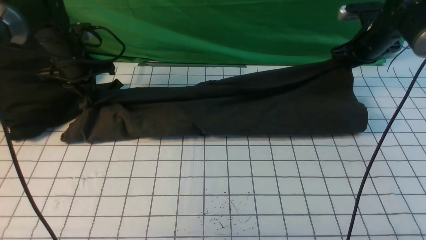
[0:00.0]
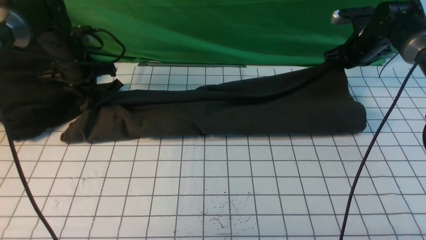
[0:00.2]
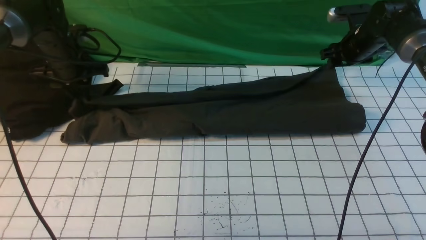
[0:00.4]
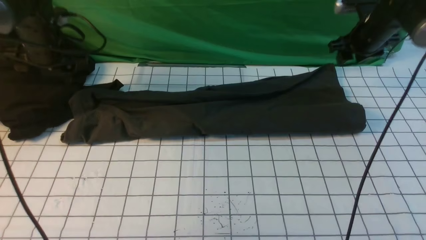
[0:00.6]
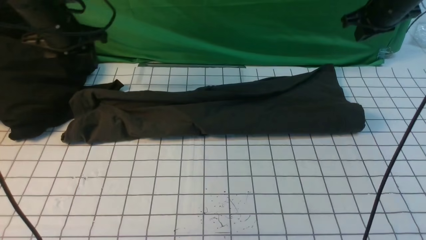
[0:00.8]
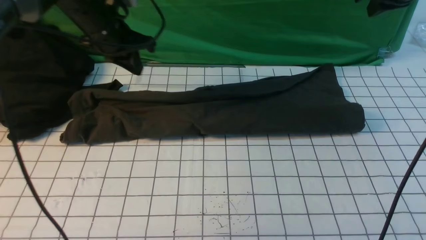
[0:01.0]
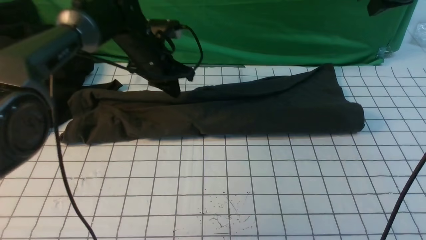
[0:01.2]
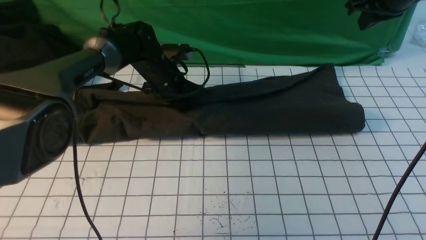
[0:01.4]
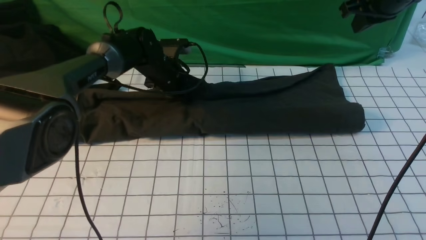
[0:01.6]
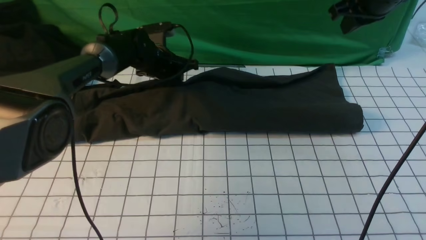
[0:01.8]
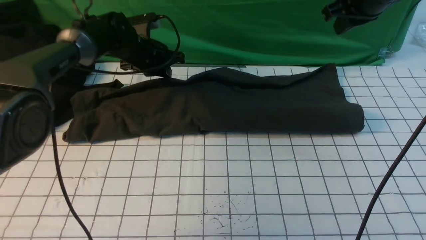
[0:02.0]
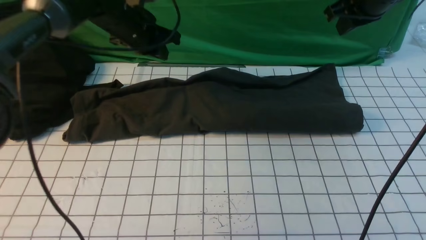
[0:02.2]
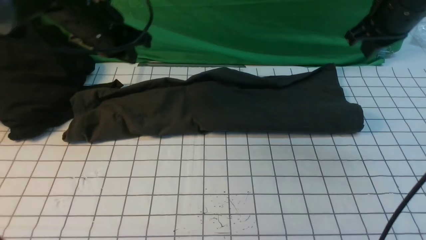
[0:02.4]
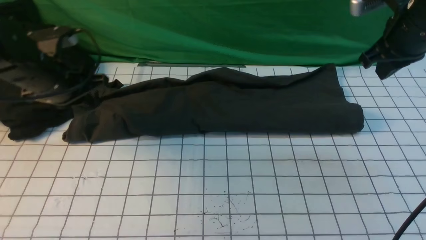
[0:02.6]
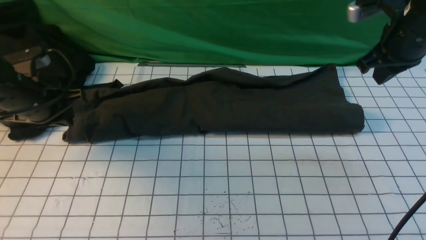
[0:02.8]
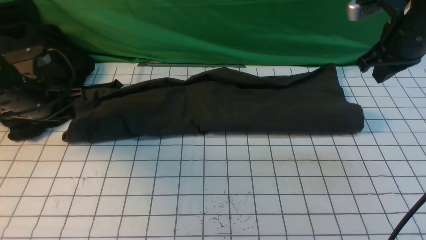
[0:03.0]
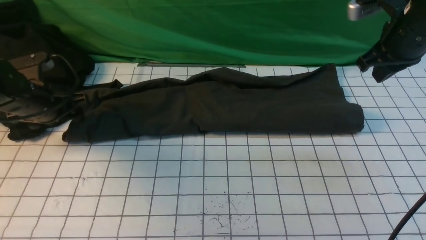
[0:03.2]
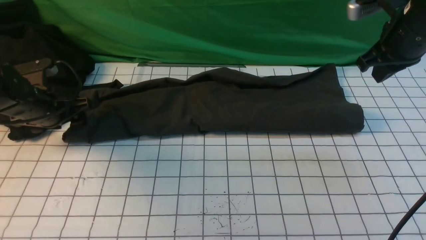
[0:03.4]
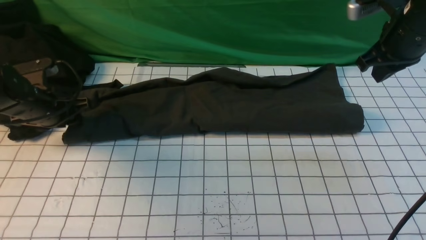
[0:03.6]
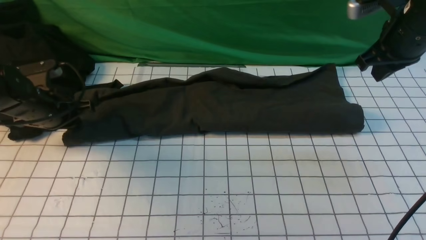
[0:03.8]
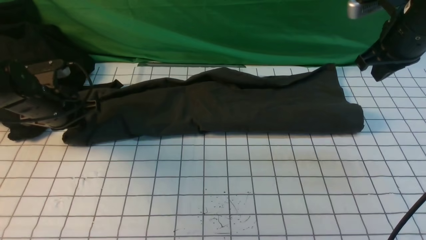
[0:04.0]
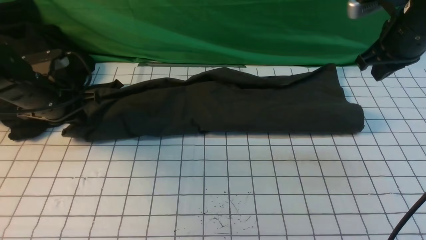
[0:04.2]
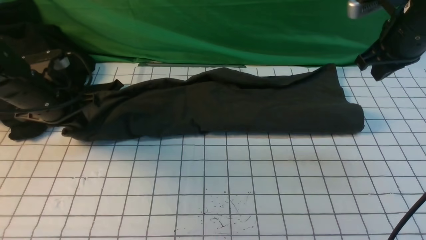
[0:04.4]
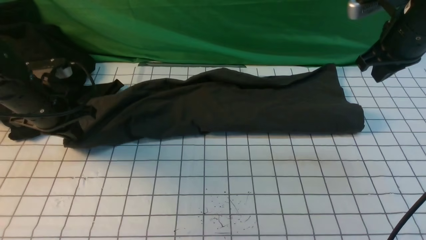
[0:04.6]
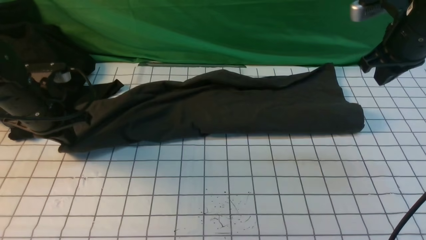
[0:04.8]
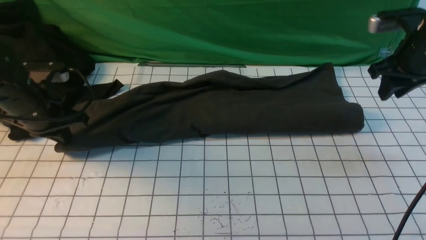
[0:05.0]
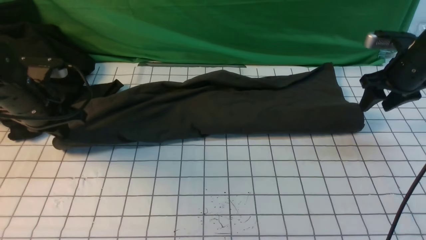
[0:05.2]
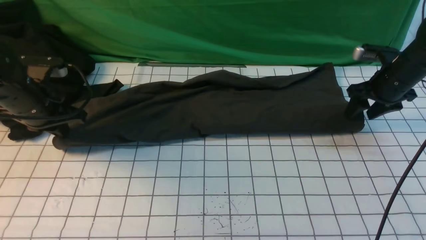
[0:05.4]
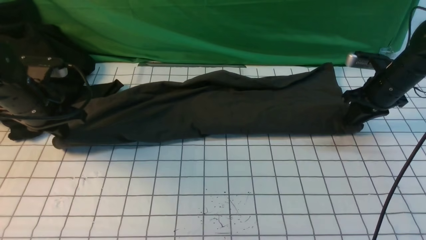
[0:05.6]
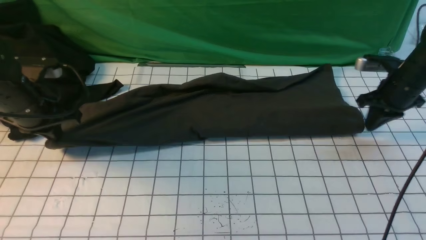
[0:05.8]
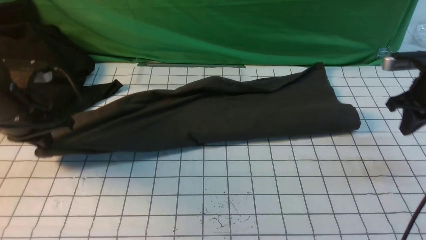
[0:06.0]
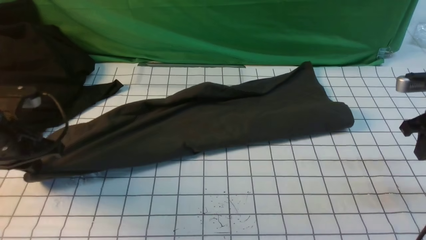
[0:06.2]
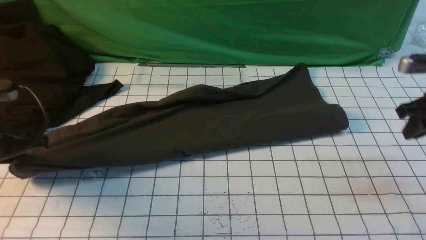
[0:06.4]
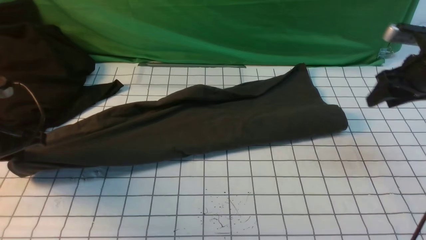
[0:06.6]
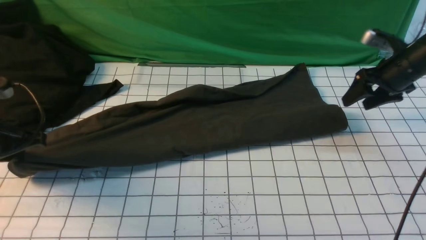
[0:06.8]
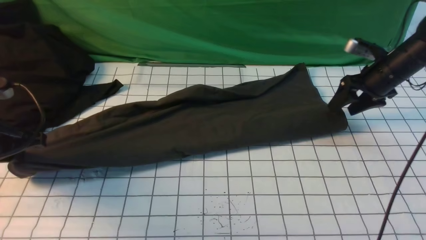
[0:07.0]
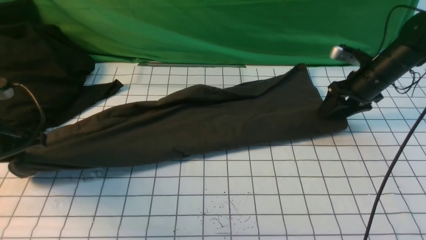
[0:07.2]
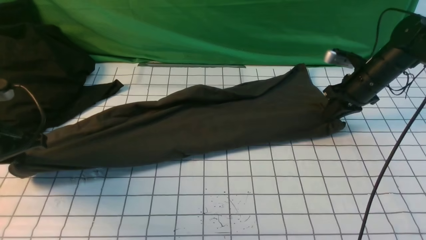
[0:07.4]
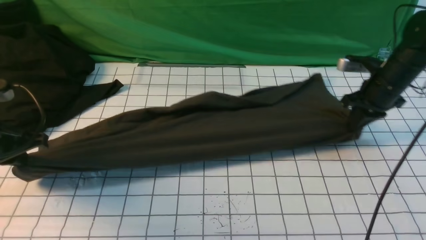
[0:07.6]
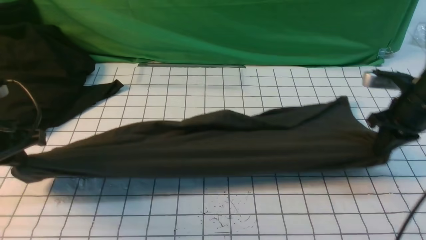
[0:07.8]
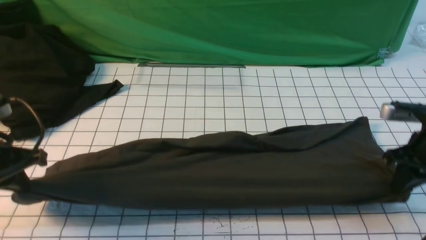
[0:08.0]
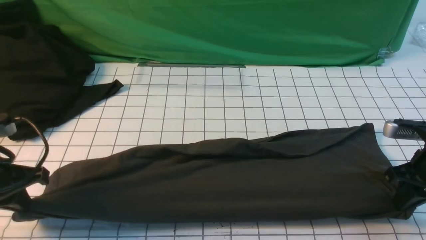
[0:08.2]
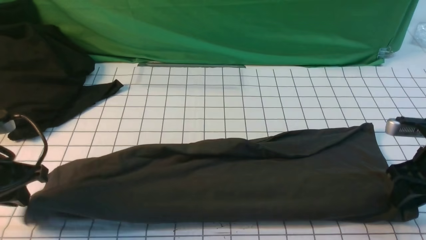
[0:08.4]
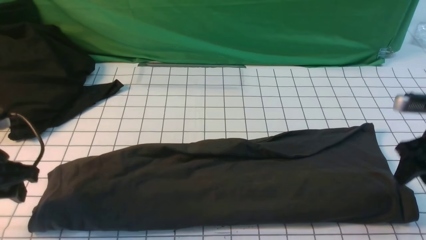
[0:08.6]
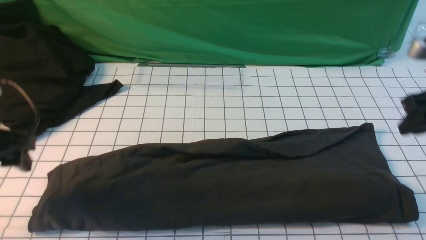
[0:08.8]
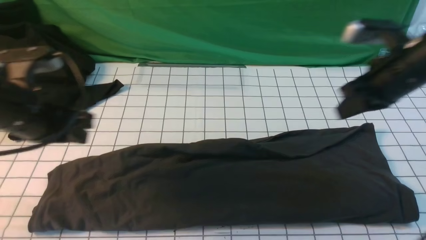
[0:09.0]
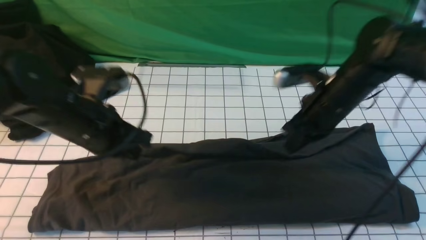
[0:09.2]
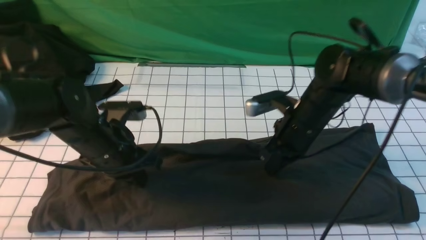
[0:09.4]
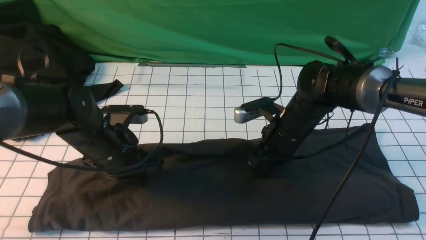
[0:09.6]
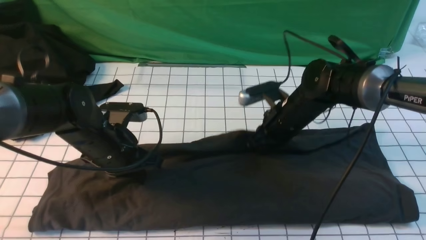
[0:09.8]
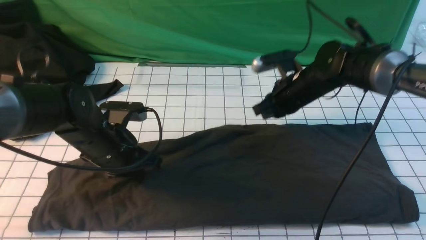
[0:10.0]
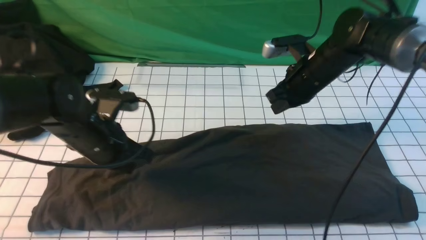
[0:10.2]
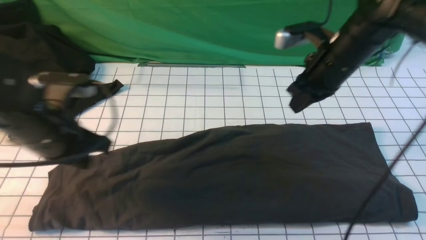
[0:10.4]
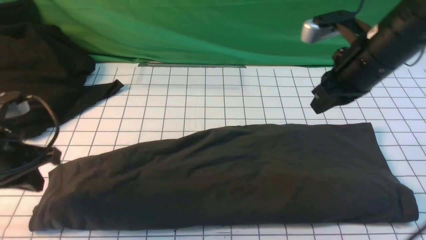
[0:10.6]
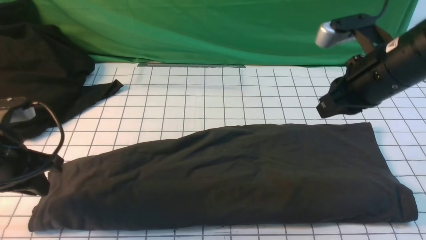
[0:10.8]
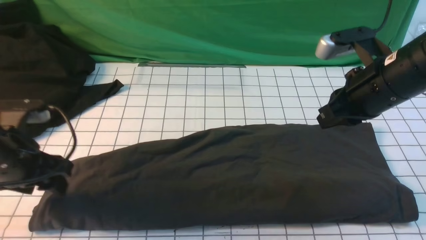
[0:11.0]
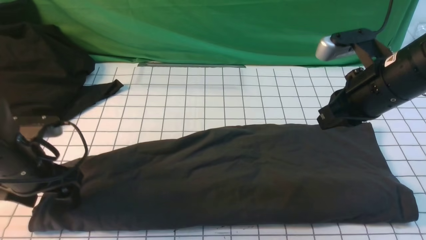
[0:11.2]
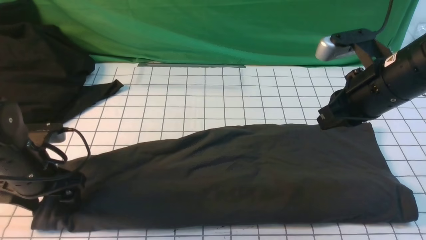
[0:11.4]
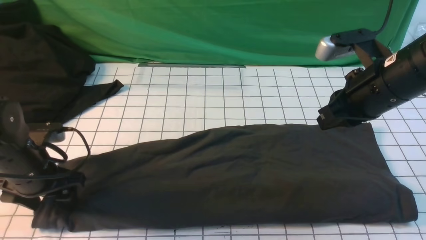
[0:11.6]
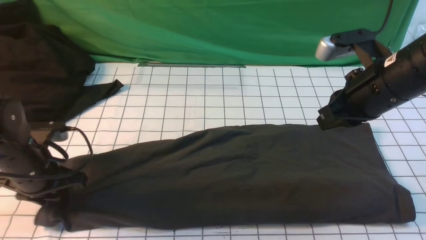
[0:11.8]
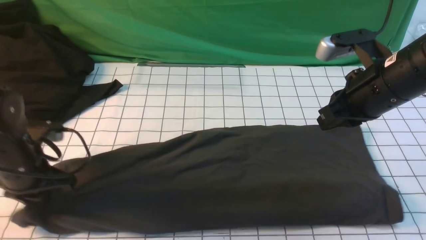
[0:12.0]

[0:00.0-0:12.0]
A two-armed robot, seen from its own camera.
0:00.0 to 0:01.6: The left gripper goes some 15 cm to the right, and opens and closes again; the right gripper travels upward and backward by about 15 cm, and opens, then closes once more.
0:01.6 to 0:03.0: The left gripper shifts about 25 cm to the left and backward, and opens its fingers; the right gripper goes approximately 5 cm backward.
0:03.0 to 0:04.4: The left gripper closes up.
0:04.4 to 0:06.0: The left gripper shifts by about 5 cm, while the right gripper moves downward and to the right, roughly 15 cm, and opens and closes again.
0:06.0 to 0:07.6: The left gripper shifts by some 5 cm; the right gripper moves roughly 10 cm forward and comes back, and opens, then closes again.
0:07.6 to 0:09.0: The left gripper goes some 10 cm to the right. The right gripper moves backward, upward and to the left, approximately 15 cm, and opens, then closes once more.
0:09.0 to 0:10.4: The left gripper reaches some 10 cm downward, then returns. Meanwhile the right gripper goes some 5 cm to the left, and travels downward and back again, roughly 10 cm each way.
0:10.4 to 0:12.0: The left gripper moves some 5 cm, and opens, then closes again; the right gripper is displaced backward by roughly 10 cm.

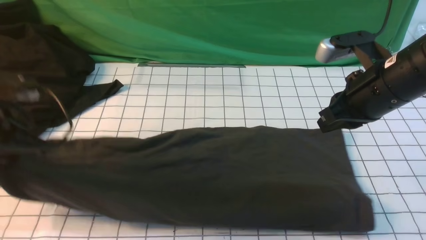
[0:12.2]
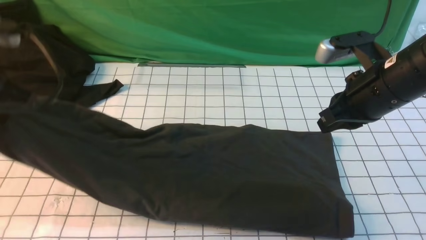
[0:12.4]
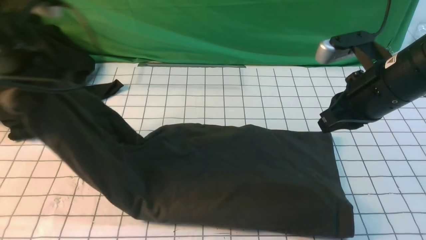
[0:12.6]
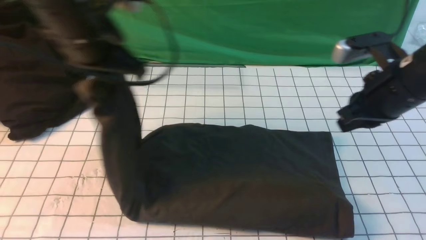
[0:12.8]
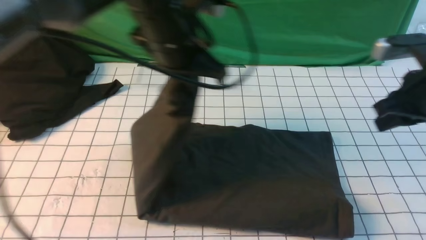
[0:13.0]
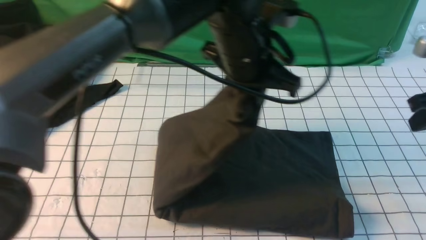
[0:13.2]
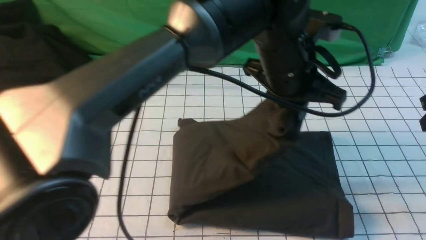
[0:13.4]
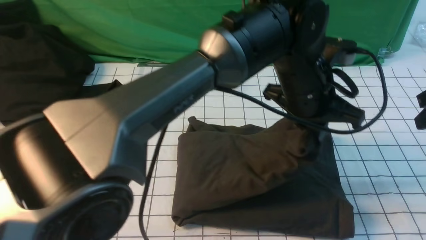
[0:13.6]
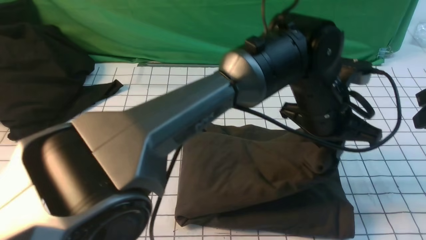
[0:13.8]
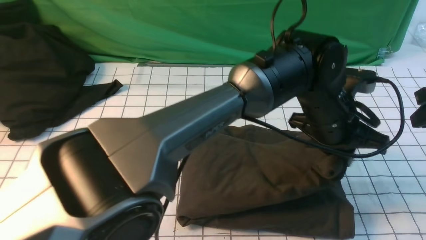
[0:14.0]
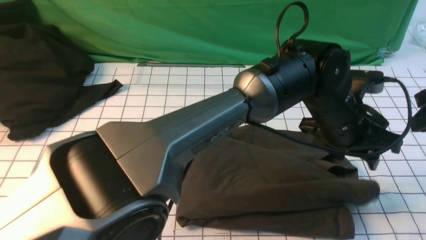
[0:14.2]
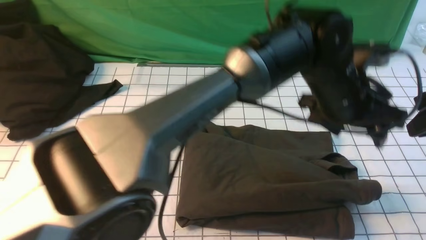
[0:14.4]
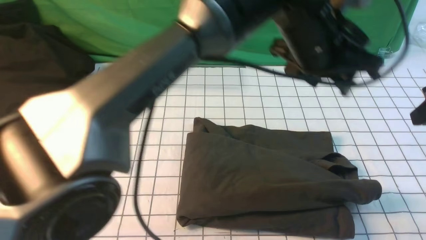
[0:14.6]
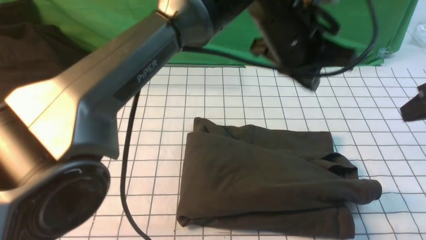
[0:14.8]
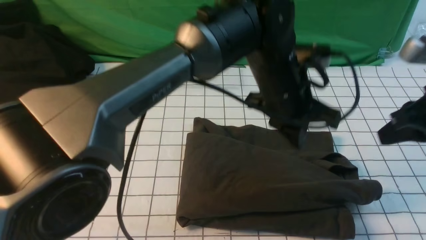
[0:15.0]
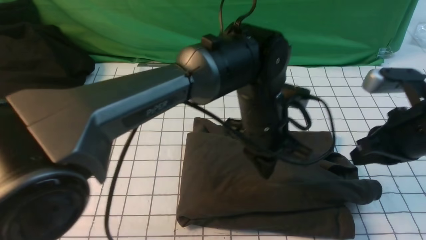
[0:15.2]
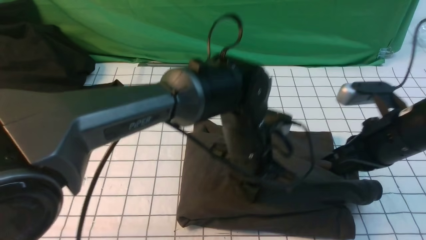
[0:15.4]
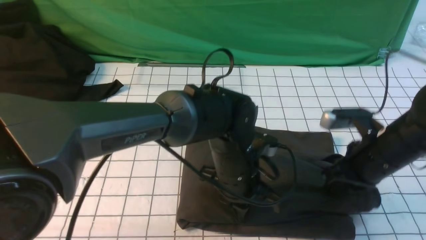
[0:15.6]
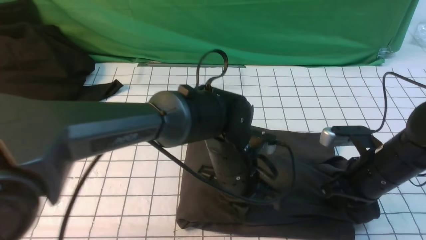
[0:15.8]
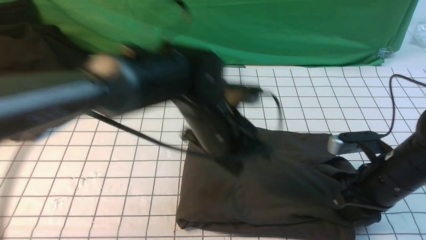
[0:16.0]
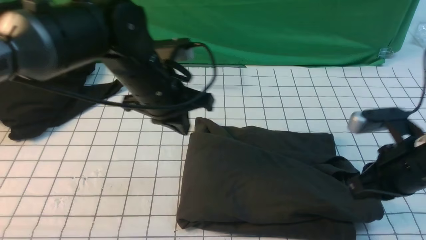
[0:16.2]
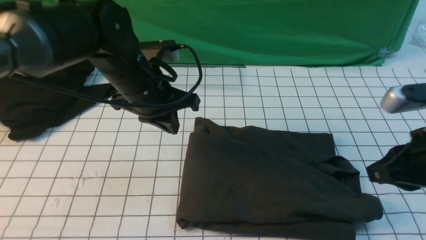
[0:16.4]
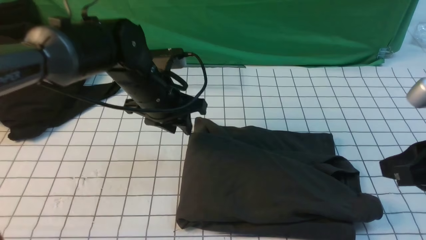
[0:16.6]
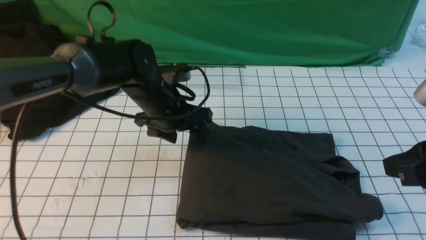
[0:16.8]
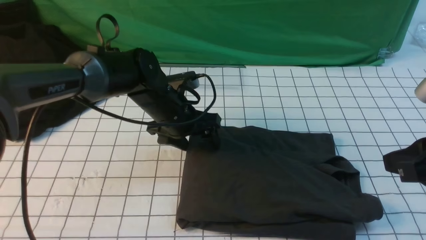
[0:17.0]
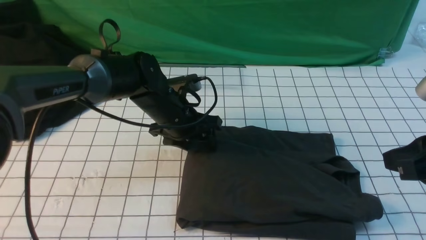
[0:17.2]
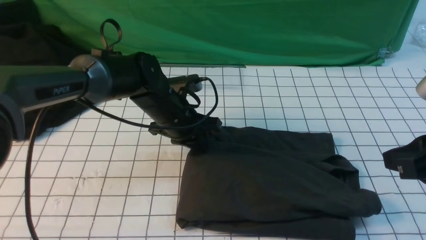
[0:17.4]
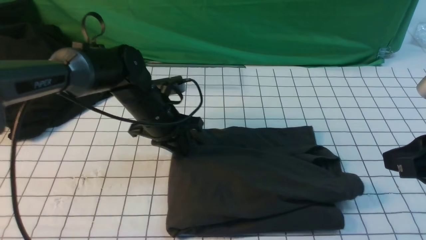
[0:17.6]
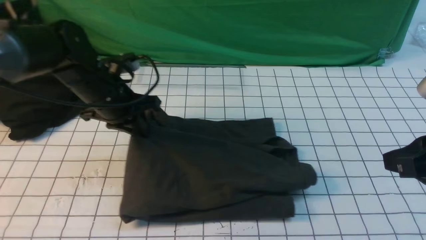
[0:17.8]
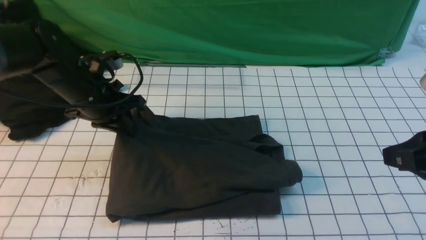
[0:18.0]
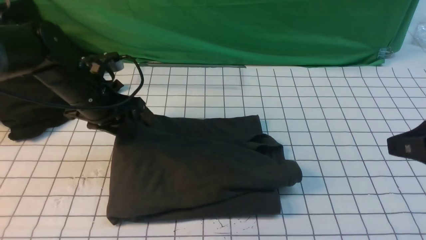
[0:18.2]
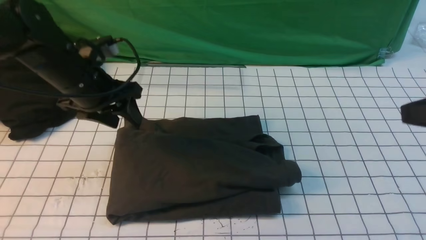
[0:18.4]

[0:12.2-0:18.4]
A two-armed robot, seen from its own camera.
Step, 0:12.2 to 0:14.2: Drag the left edge of the fabric to the left with your left arm and fold it to the right edge.
0:12.2 to 0:13.8: The right gripper heads to the right, covering some 15 cm; the left gripper is displaced to the right by about 40 cm.
0:13.8 to 0:15.4: The two grippers go some 10 cm to the left and downward. The left gripper opens, then closes once more.
0:15.4 to 0:16.8: The right gripper travels backward and upward by some 15 cm. Meanwhile the left gripper heads to the left and forward, covering approximately 15 cm, and opens.
0:16.8 to 0:18.4: The right gripper goes some 5 cm upward; the left gripper is displaced to the left and upward by roughly 15 cm, and closes.
